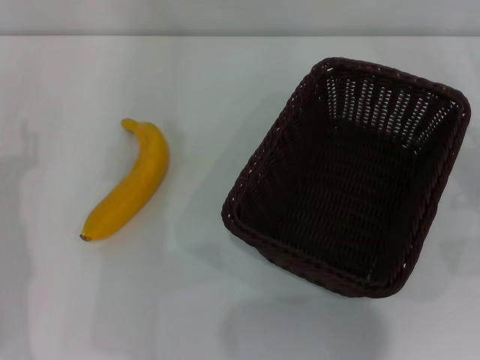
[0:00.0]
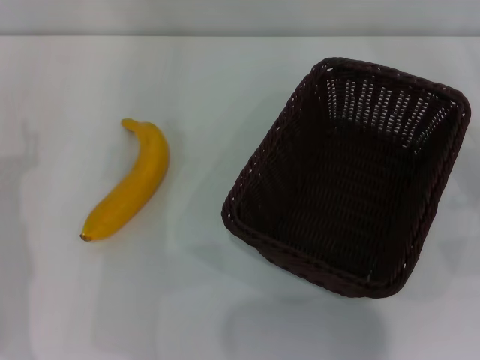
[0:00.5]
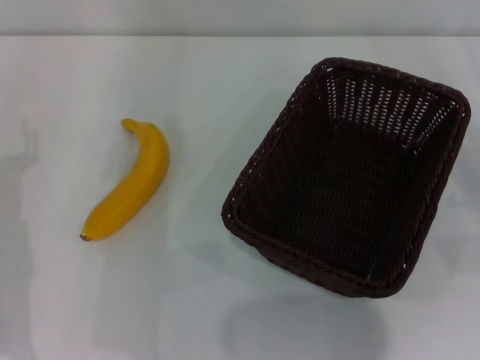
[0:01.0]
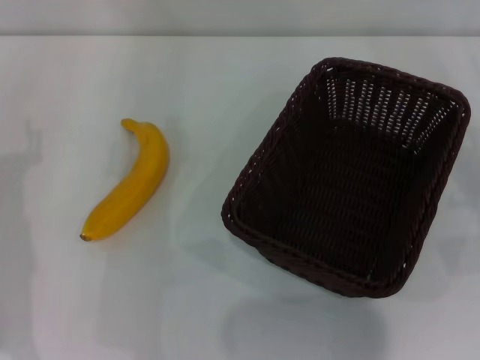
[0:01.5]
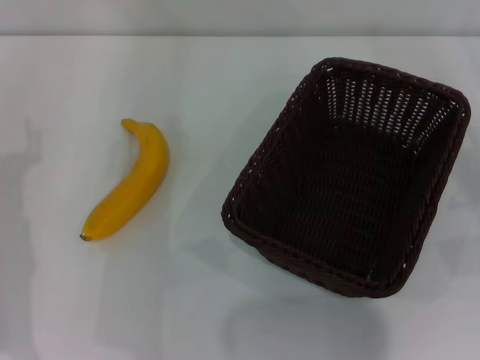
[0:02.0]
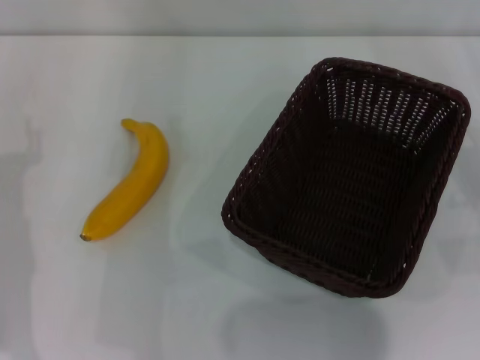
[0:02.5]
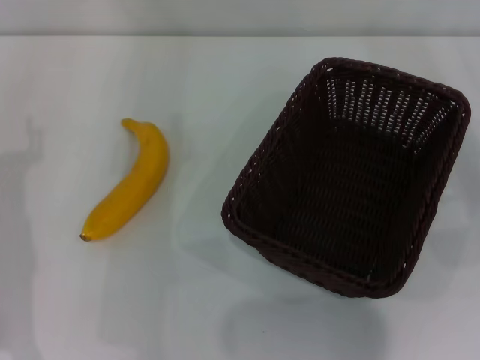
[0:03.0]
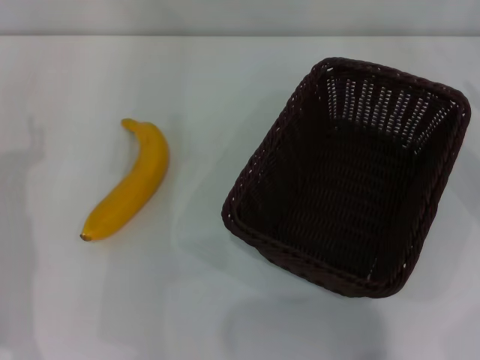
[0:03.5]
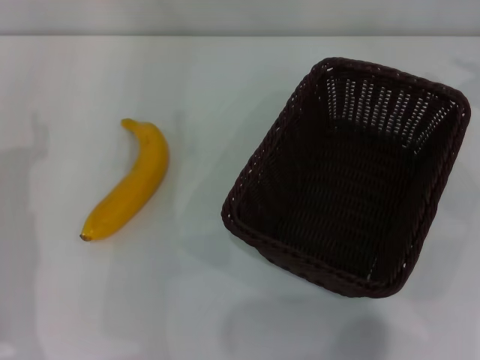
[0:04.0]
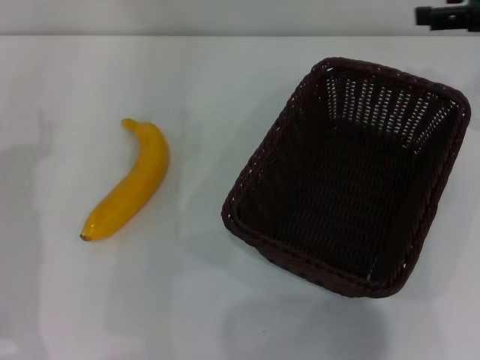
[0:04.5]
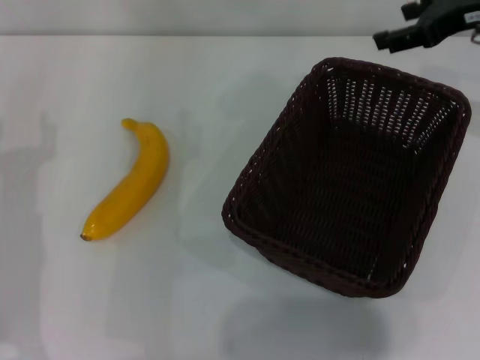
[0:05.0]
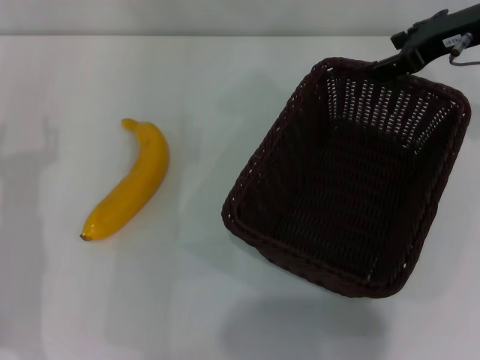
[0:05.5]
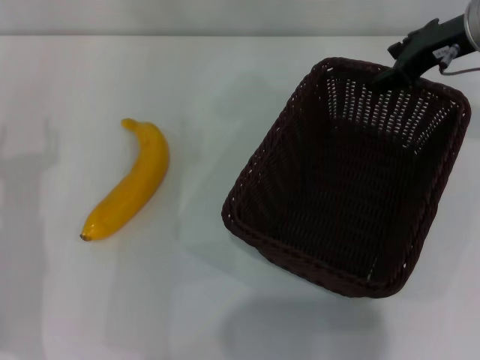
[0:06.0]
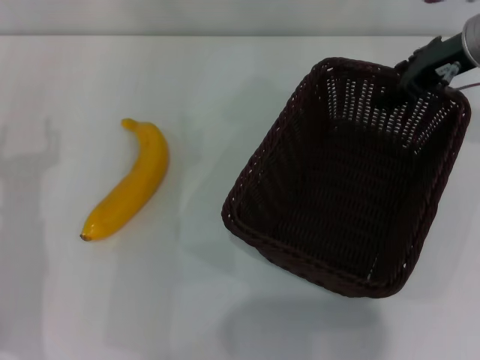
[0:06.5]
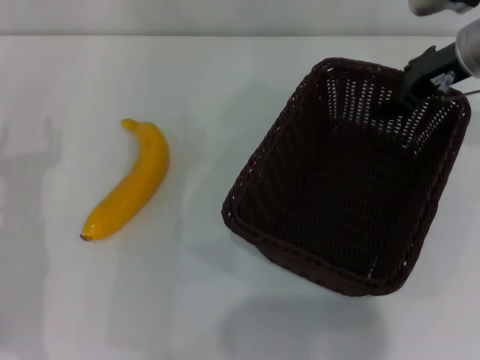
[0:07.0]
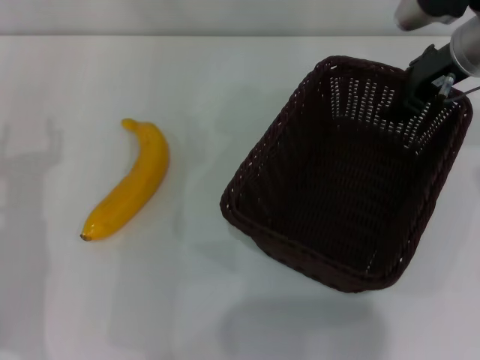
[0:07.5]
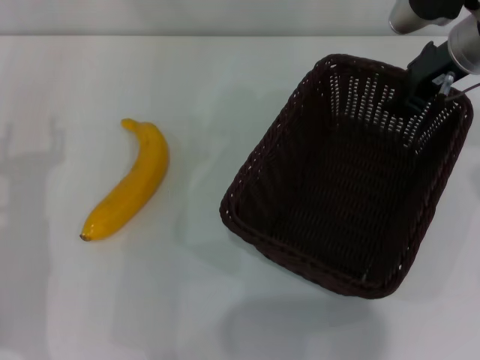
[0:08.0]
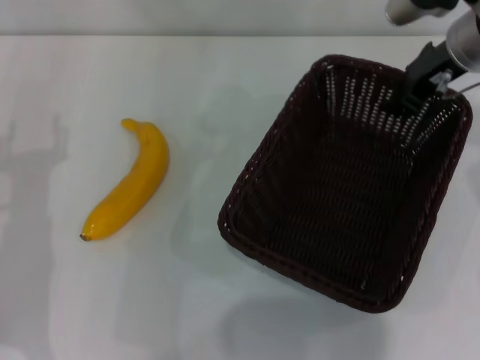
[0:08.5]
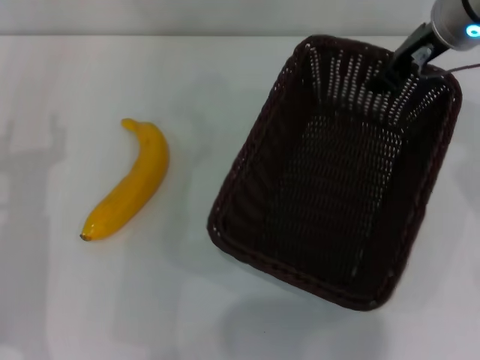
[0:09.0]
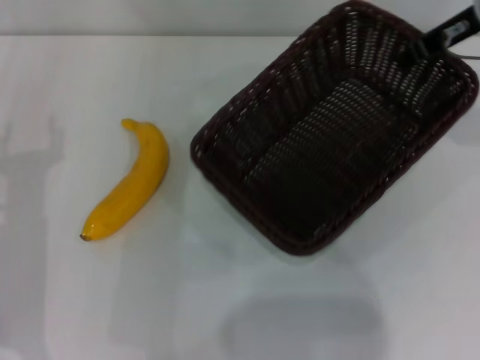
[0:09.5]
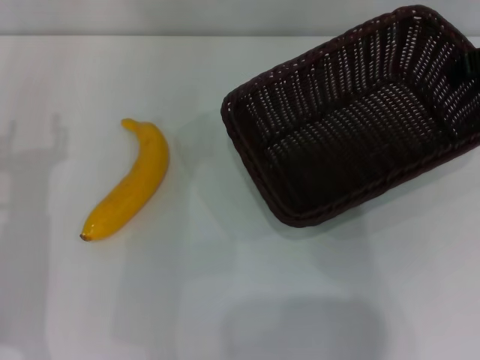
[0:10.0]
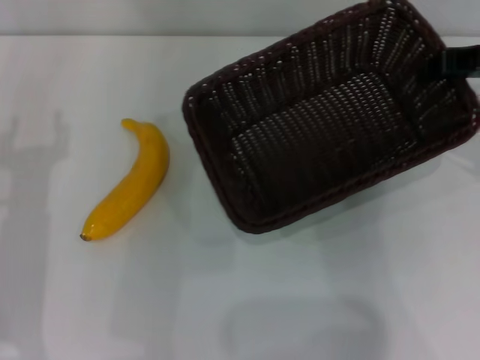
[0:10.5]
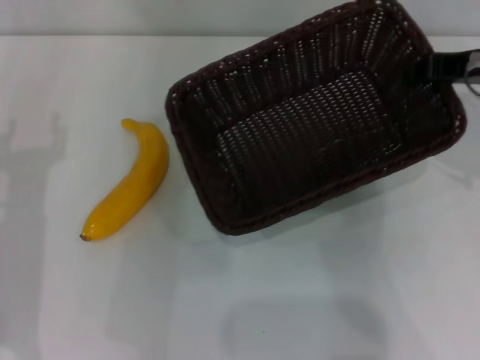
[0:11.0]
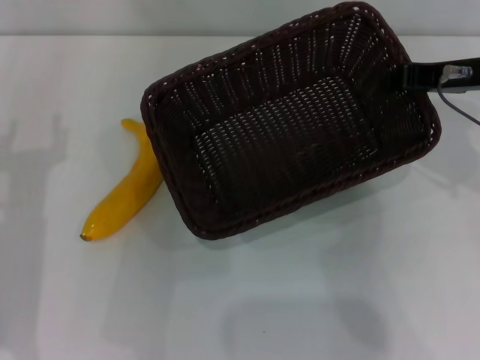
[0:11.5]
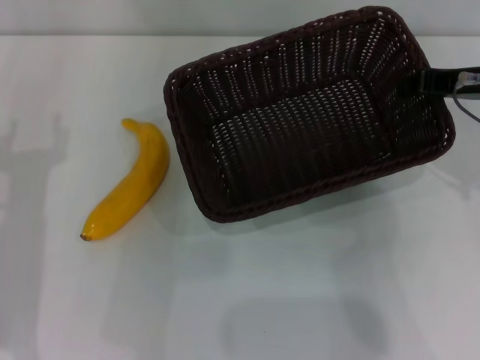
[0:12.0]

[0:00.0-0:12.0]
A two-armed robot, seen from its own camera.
Step, 0:00.0 to 0:08.5: Pick up the dark basket with the right gripper.
0:00.0 to 0:02.0: Both grippers stay put.
0:04.0 to 0:06.0: The right gripper moves to the left and forward, about 15 cm.
0:06.0 to 0:08.0: The grippers stay close to where they were, moving slightly.
0:08.0 to 0:10.0: The right gripper goes some 5 cm to the right, and closes up.
0:10.0 to 0:12.0: The right gripper changes place by approximately 5 cm.

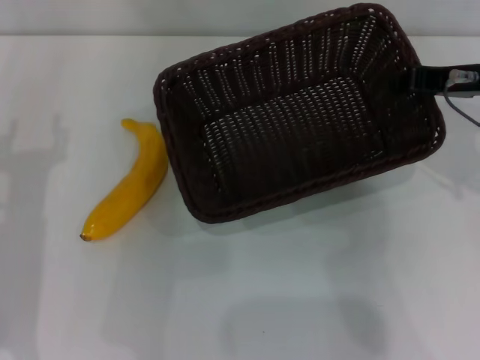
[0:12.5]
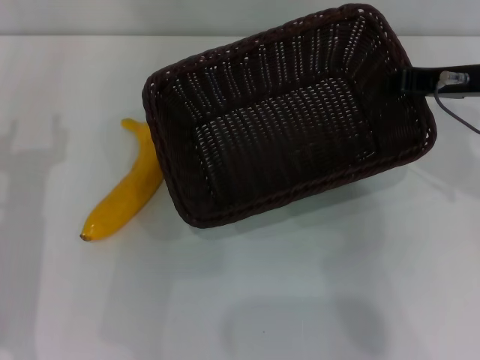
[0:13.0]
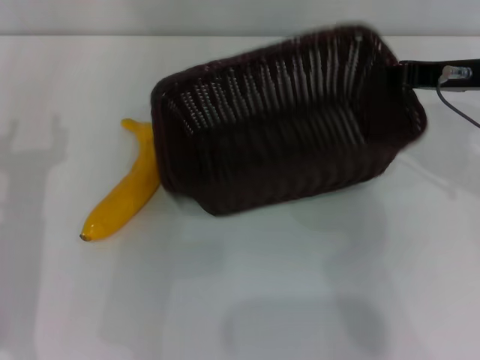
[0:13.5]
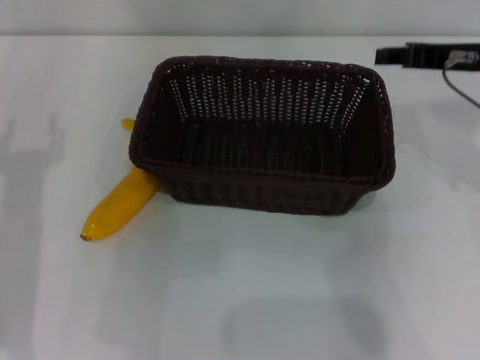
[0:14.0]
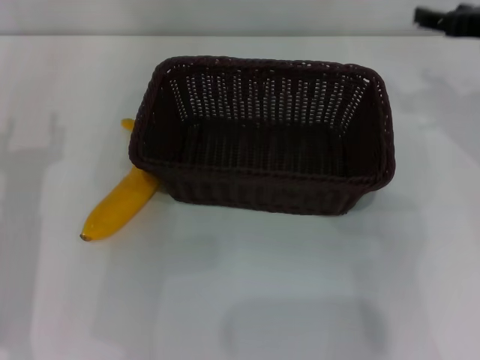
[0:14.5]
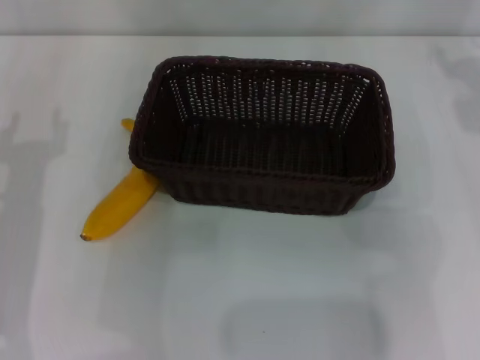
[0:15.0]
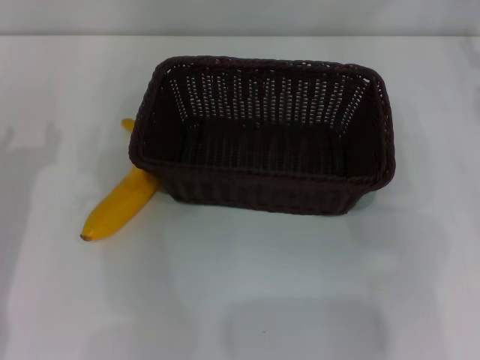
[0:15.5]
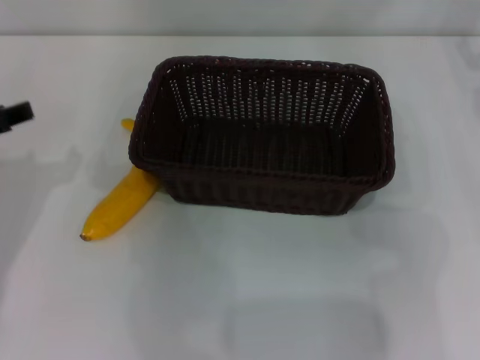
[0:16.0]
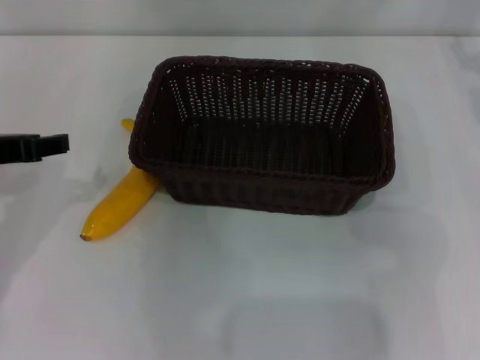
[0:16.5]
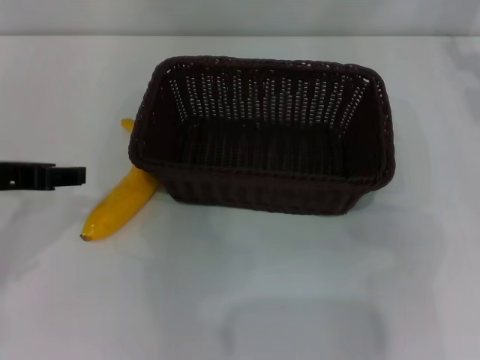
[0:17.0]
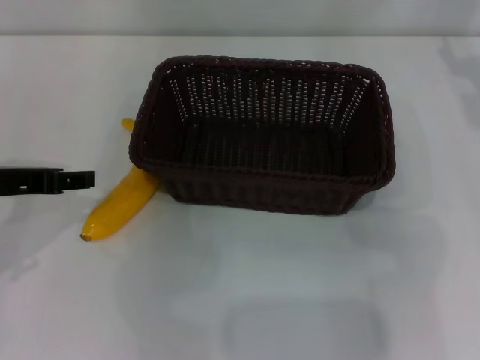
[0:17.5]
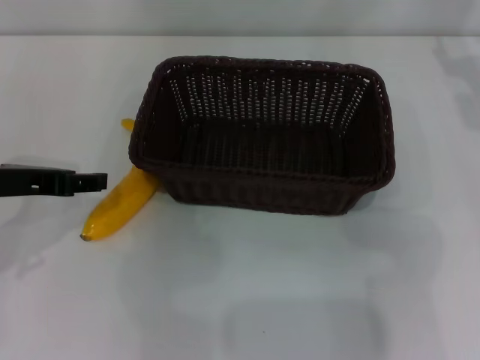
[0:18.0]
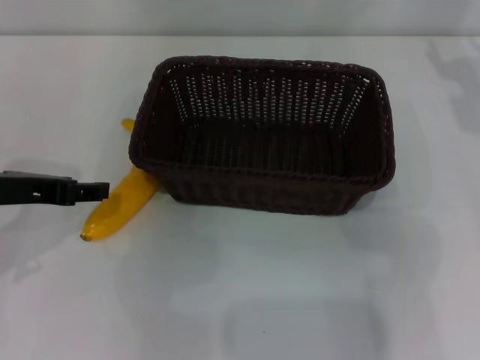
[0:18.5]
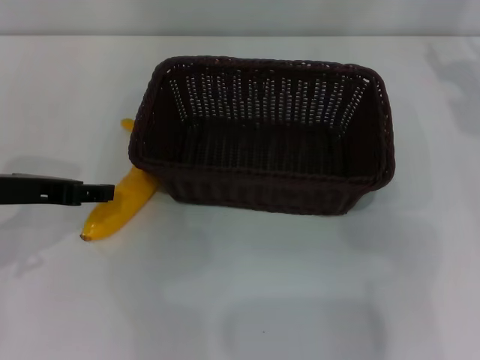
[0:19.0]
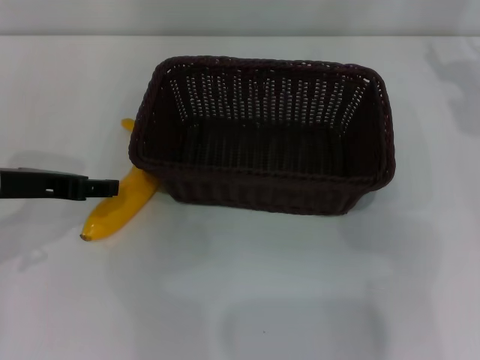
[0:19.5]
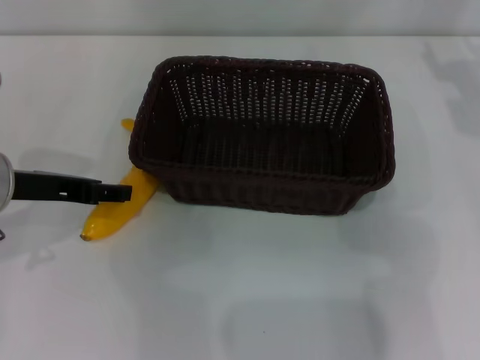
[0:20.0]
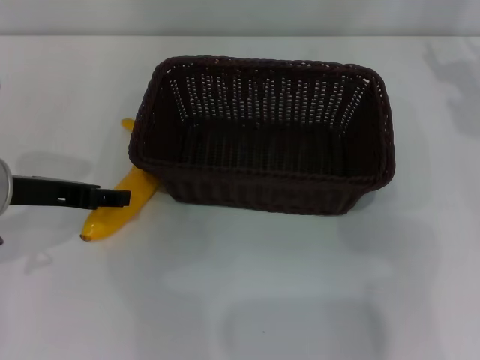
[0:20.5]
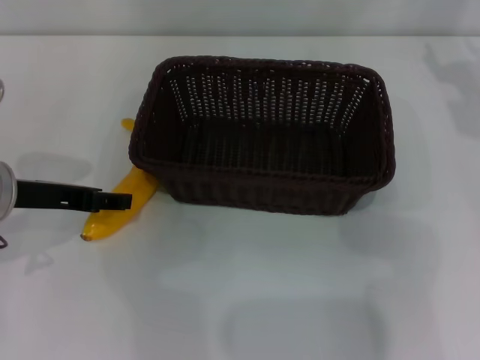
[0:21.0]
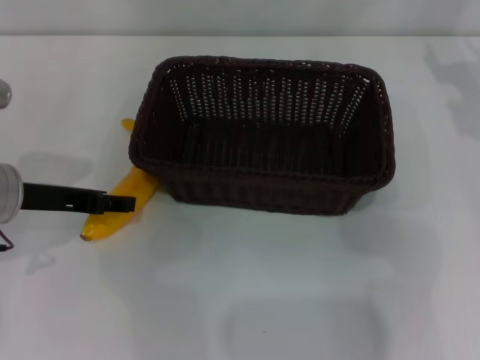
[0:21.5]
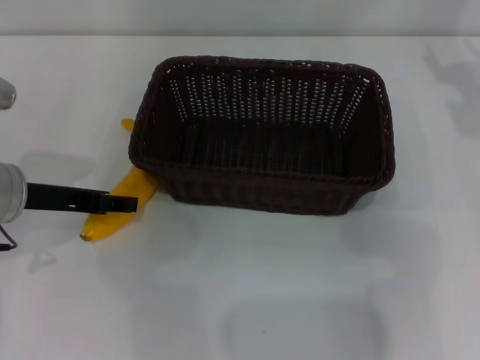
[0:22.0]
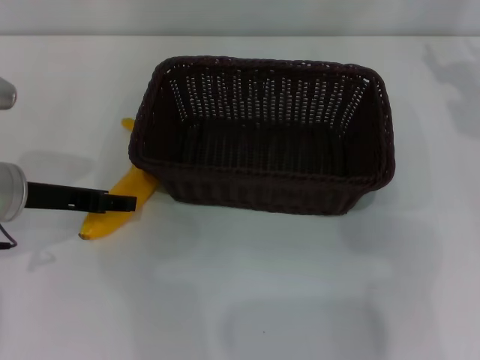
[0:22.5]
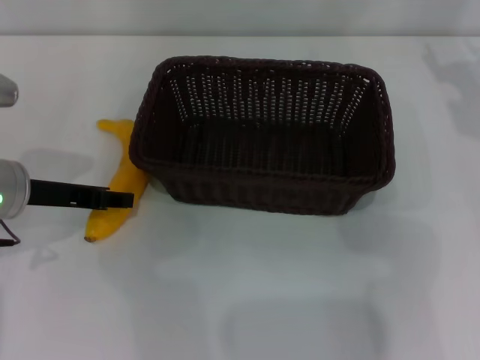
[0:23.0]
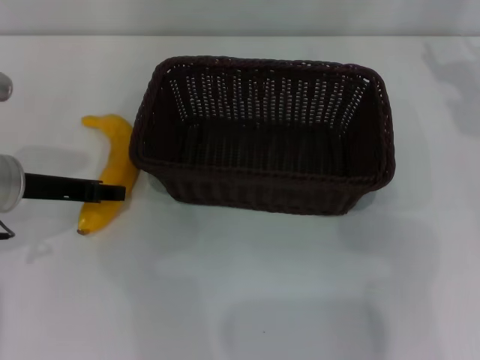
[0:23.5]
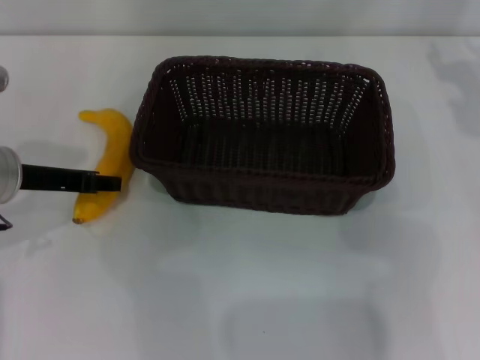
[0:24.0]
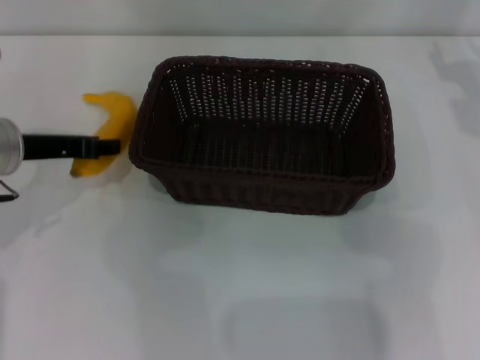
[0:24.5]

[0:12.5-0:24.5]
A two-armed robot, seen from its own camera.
0:12.5 to 0:14.5: The right gripper opens up.
0:14.5 to 0:16.5: The left gripper goes some 5 cm upward.
0:16.5 to 0:20.5: The grippers make only small movements.
0:20.5 to 0:22.5: The grippers stay close to where they were, moving slightly.
0:22.5 to 0:24.5: The left gripper closes.

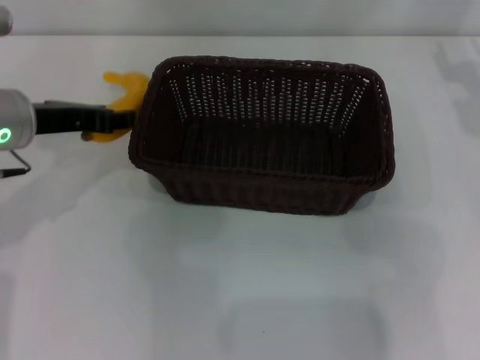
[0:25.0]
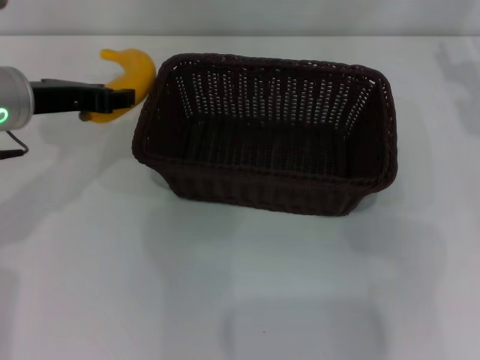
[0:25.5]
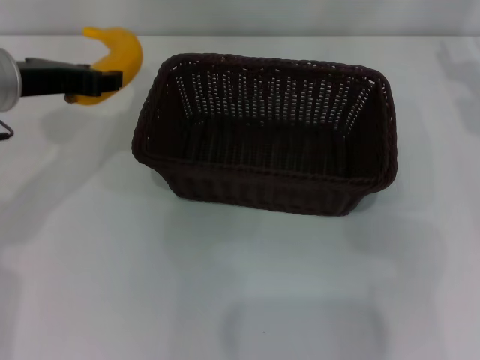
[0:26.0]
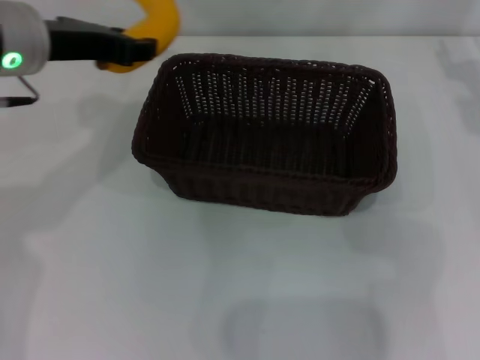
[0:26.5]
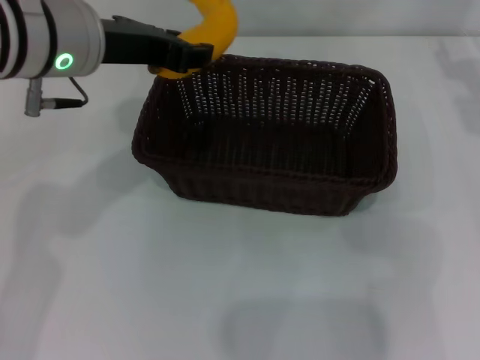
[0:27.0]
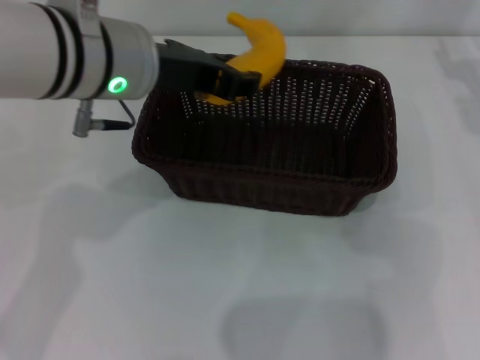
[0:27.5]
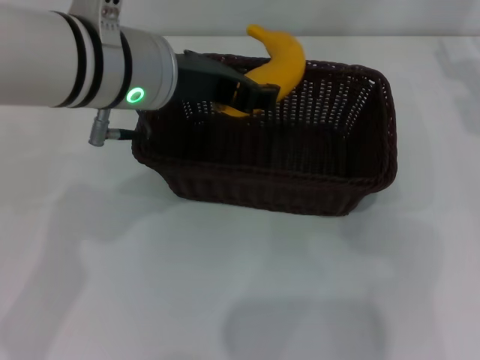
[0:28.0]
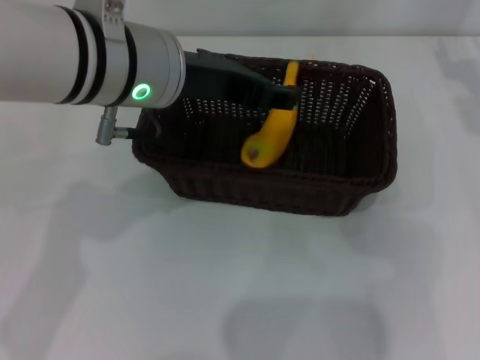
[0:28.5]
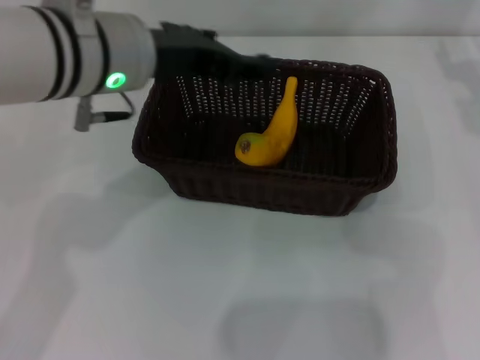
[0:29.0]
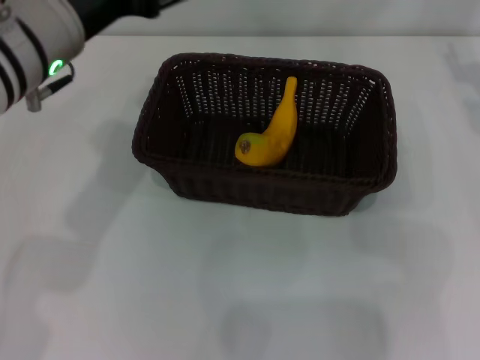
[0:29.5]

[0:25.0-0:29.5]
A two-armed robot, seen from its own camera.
Step, 0:25.5 to 0:28.5: Place the banana into the dark basket with the left gripper.
0:25.0 to 0:27.0: The left gripper moves upward and to the right, roughly 10 cm.
0:27.0 to 0:29.5: The left gripper opens its fingers.
